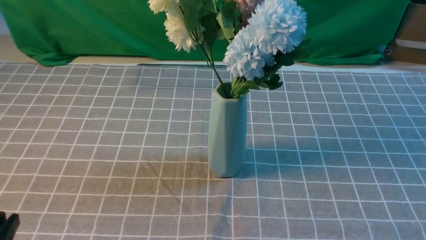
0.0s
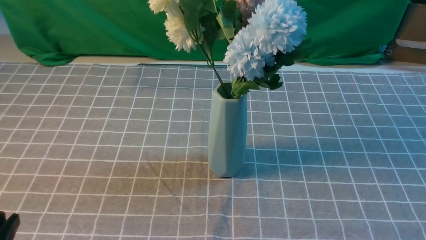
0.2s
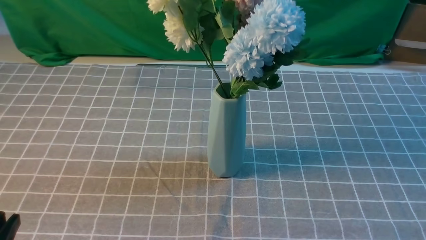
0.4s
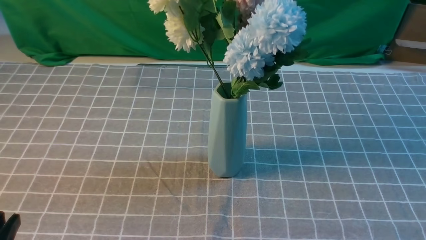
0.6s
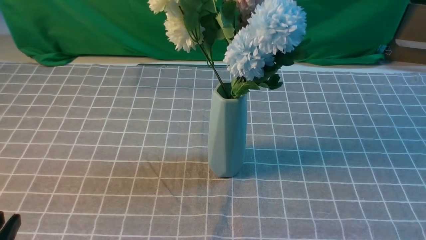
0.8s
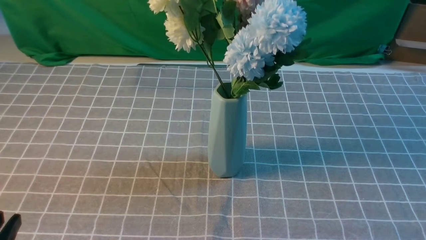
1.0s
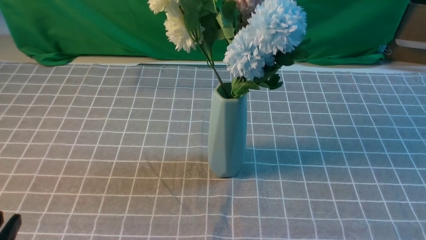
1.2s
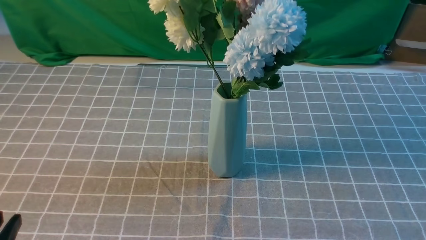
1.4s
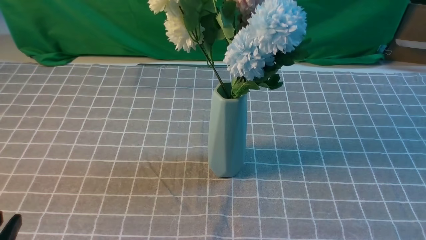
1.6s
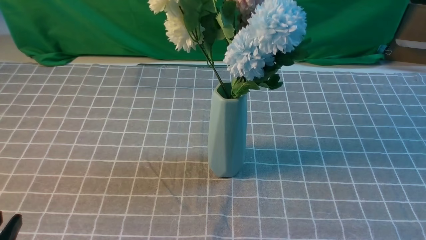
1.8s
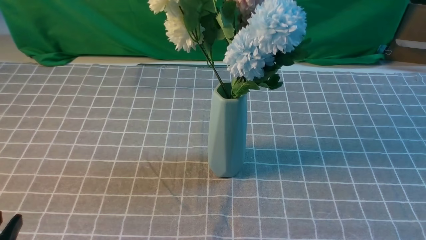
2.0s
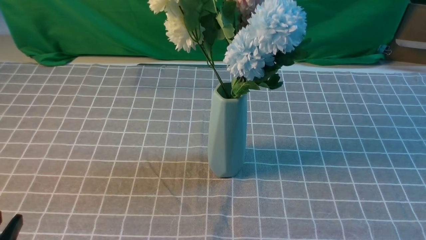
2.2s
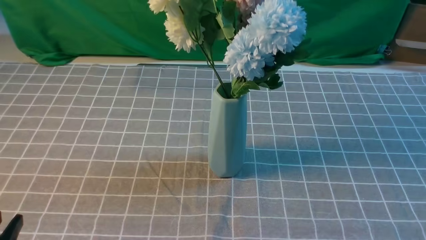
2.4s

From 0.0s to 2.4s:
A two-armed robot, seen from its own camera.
Task of the whole recording: insert the flowers into the vase on the table with the grey tablecloth.
From 1.2s to 2.4s: Both grippers stay about where they are.
